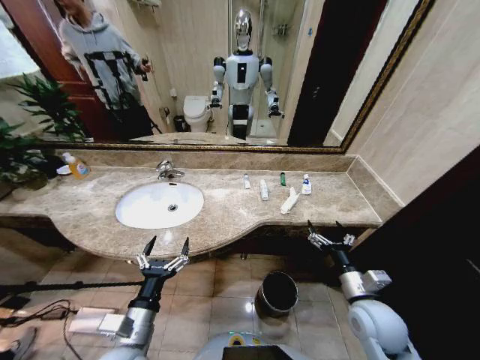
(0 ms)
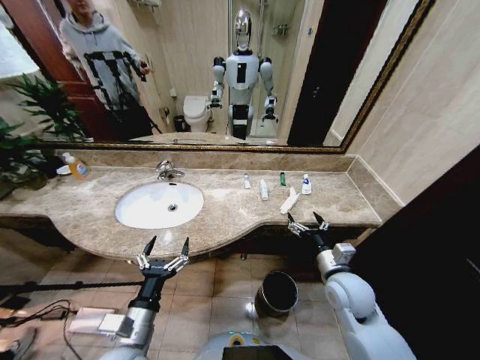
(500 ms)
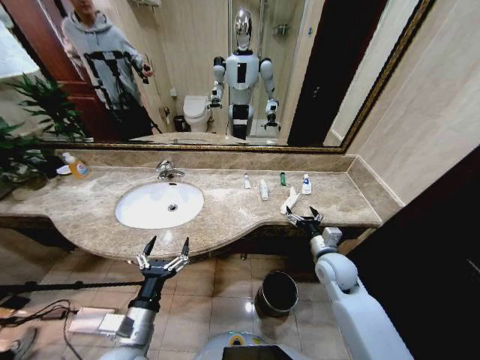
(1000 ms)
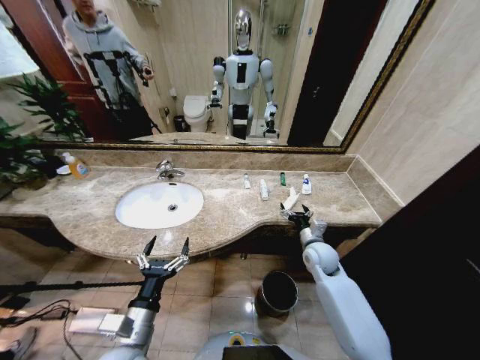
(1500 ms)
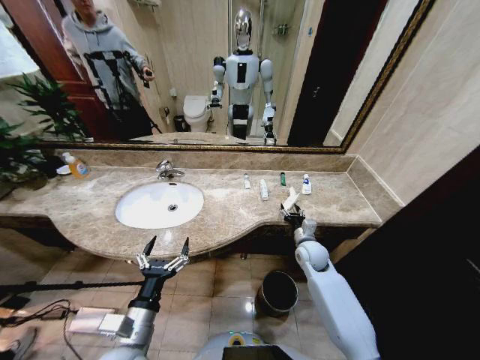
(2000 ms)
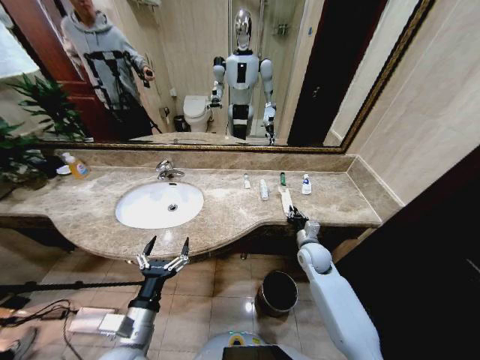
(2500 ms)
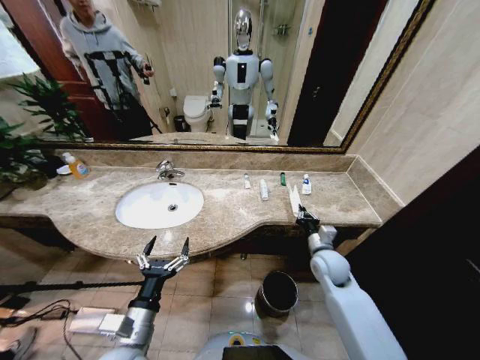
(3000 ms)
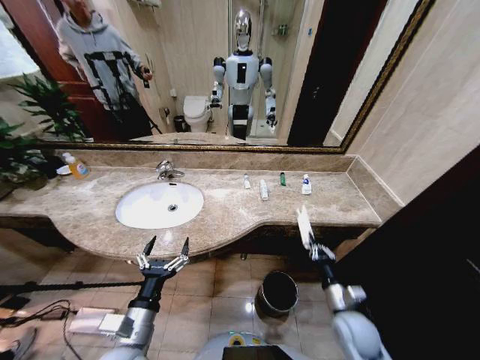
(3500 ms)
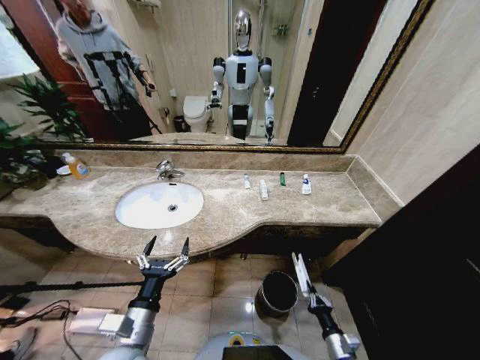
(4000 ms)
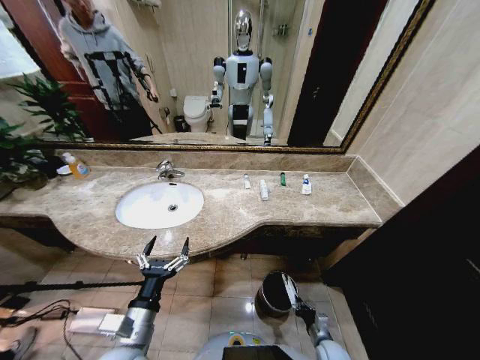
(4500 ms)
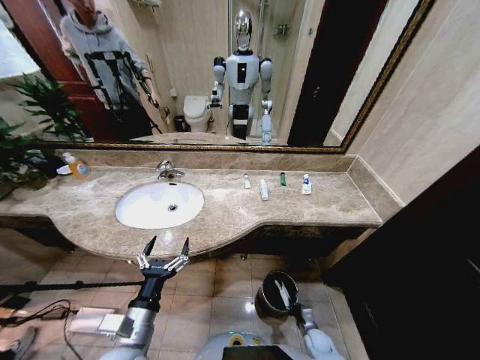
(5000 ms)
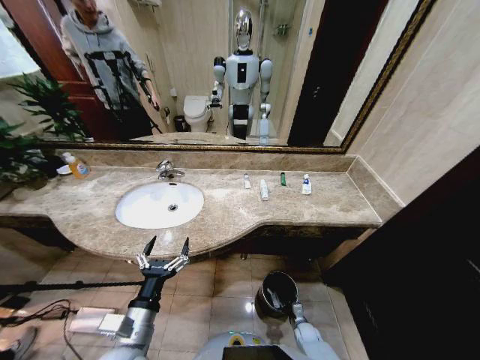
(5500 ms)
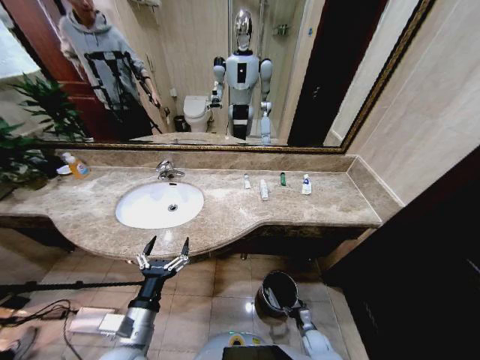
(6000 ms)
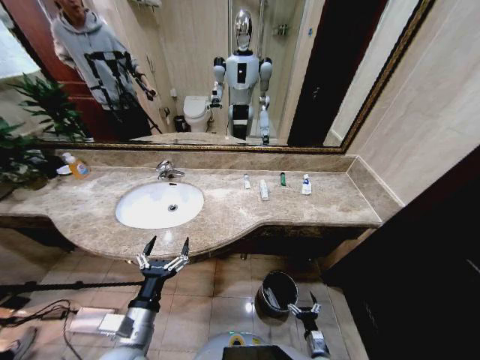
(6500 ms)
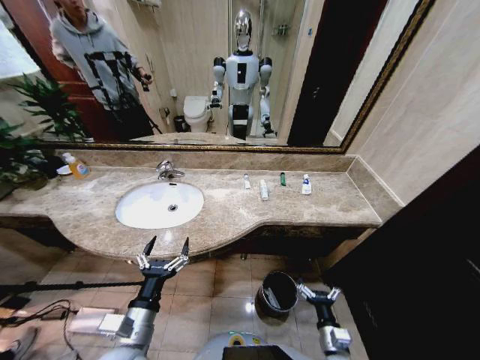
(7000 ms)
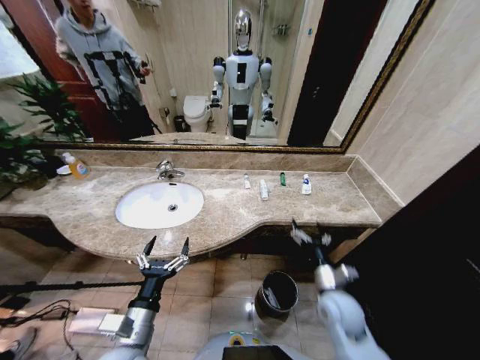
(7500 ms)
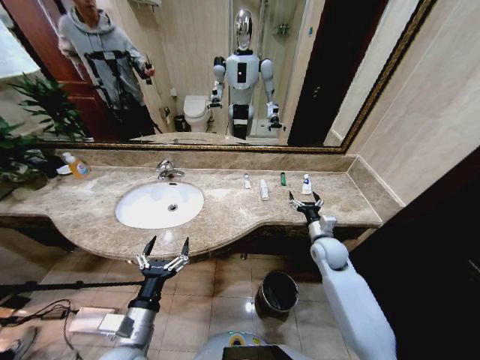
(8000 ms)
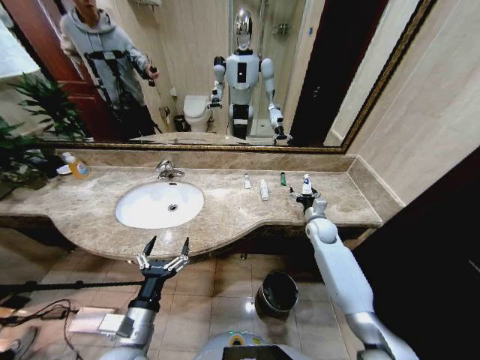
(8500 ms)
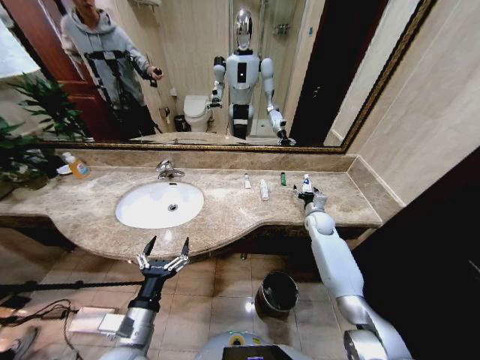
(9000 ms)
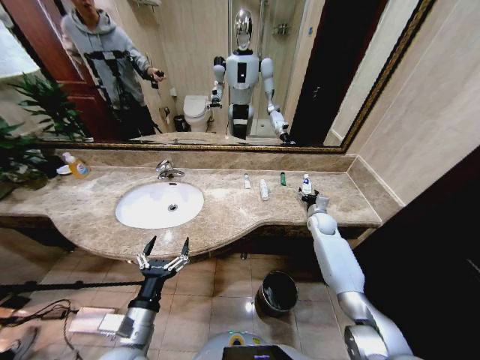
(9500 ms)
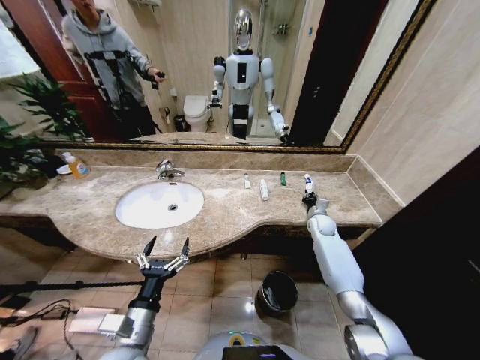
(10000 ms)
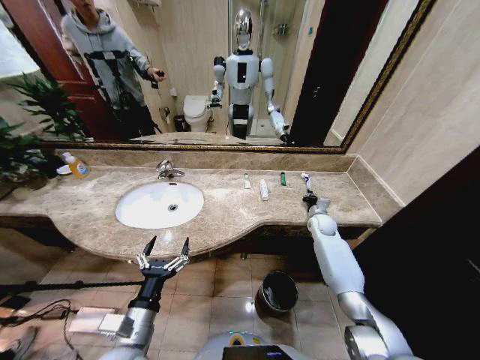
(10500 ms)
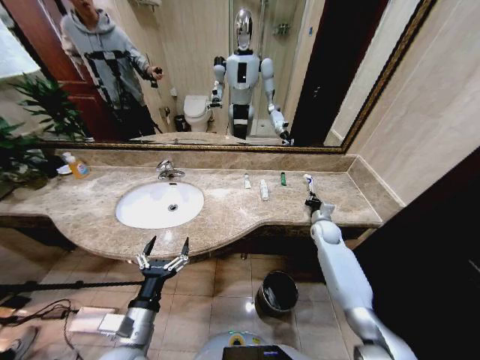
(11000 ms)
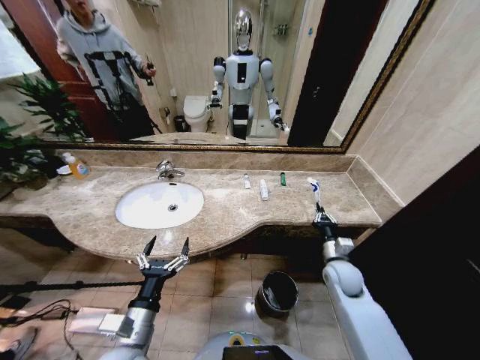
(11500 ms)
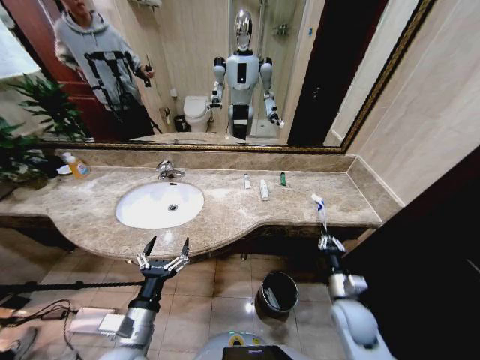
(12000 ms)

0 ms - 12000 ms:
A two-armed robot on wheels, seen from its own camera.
Task of the whole recording: Pick up the trash from the sink and place it in the trash bin.
2000 ms - 4000 ms: The right gripper is displaced backward and downward by some 35 cm, and closes.
4000 ms - 6000 ms: The right gripper moves downward and forward, some 20 cm, and opens.
6000 ms - 8000 ms: The right gripper goes some 40 cm upward and forward.
8000 ms - 10000 ms: The right gripper shifts about 15 cm forward and to the right, and closes.
10000 ms - 12000 ms: The right gripper travels backward by approximately 30 cm.

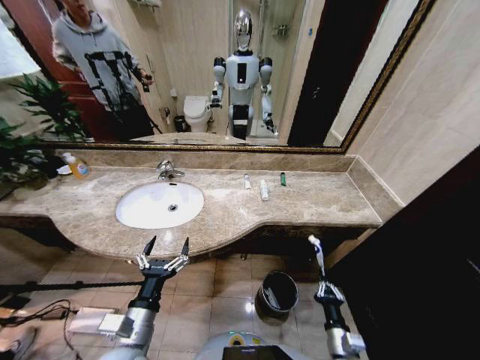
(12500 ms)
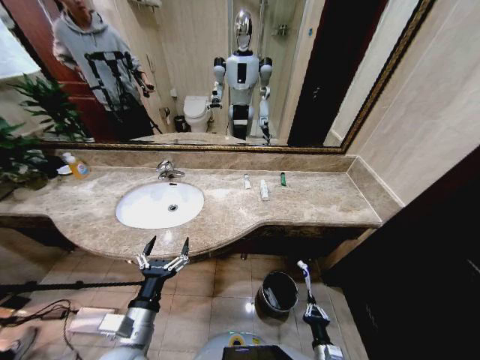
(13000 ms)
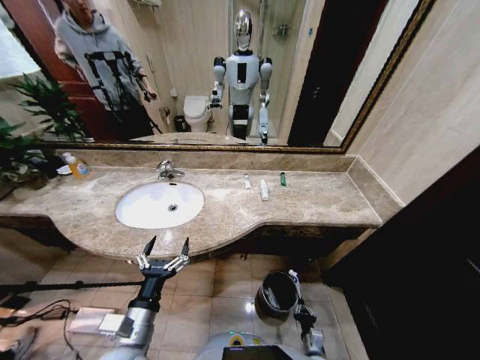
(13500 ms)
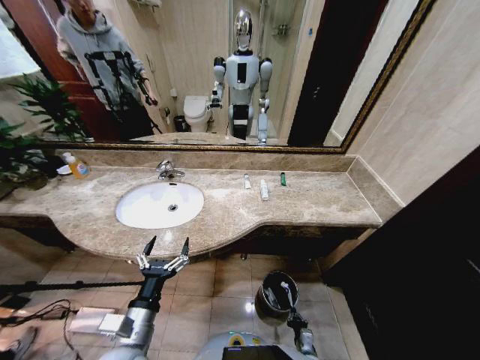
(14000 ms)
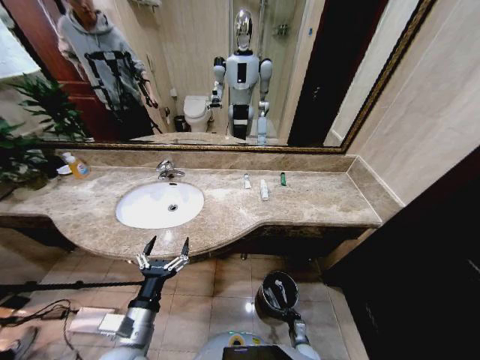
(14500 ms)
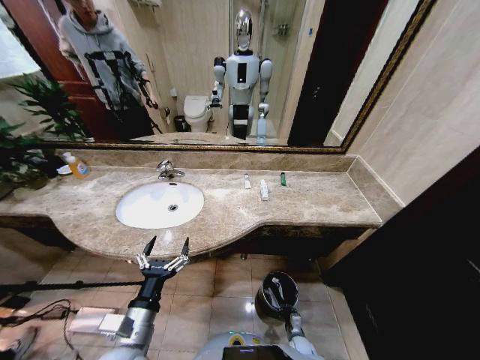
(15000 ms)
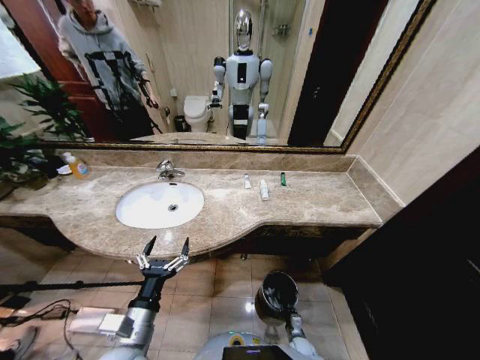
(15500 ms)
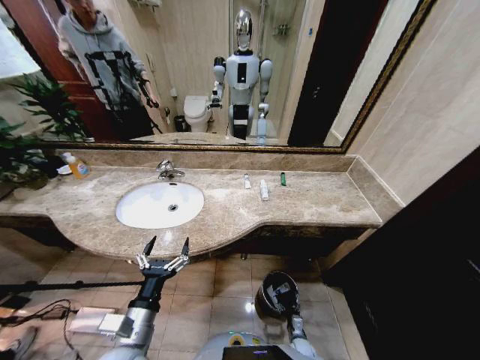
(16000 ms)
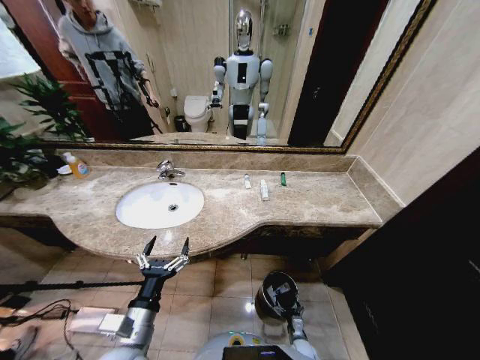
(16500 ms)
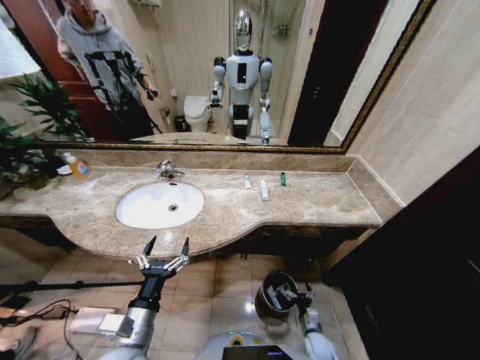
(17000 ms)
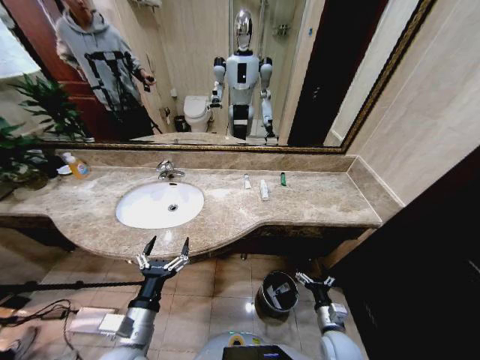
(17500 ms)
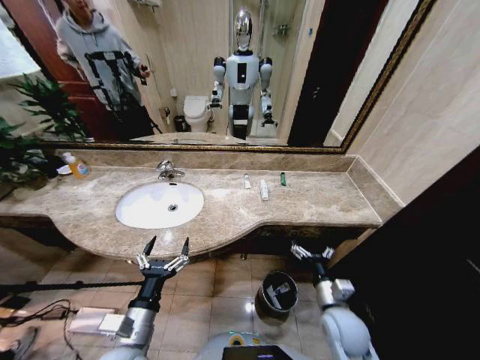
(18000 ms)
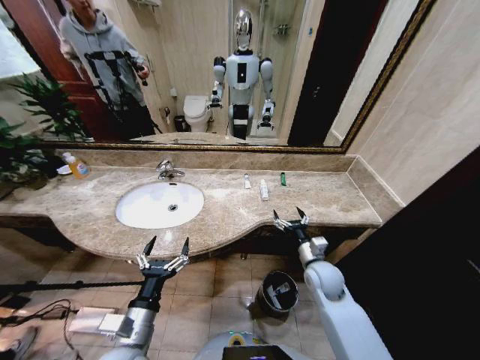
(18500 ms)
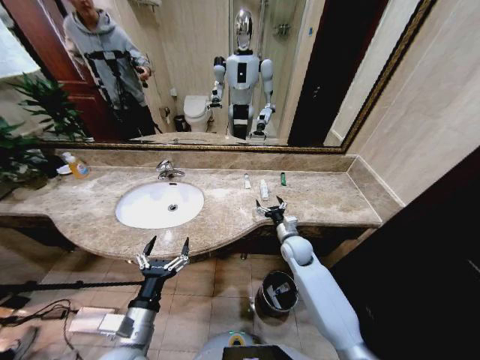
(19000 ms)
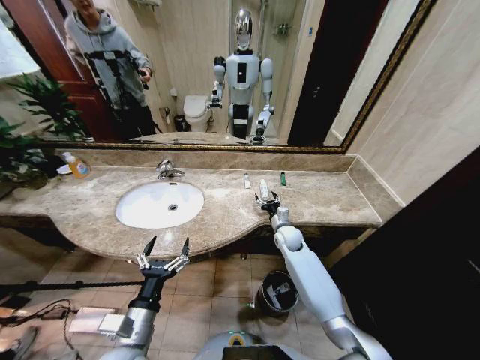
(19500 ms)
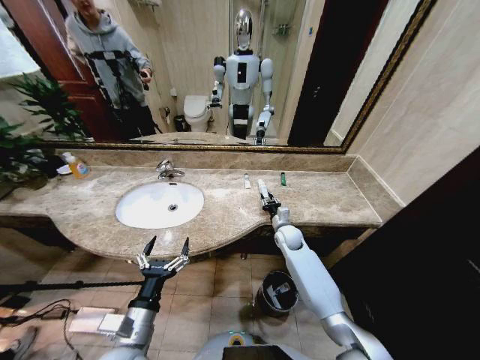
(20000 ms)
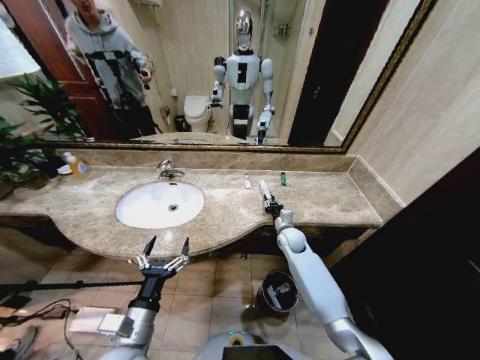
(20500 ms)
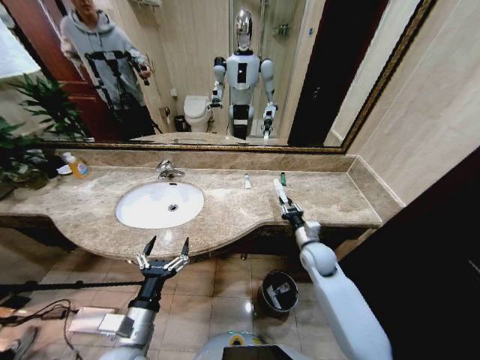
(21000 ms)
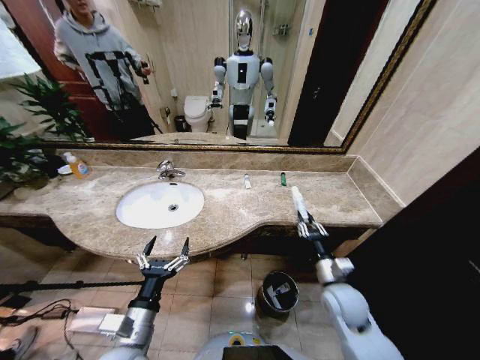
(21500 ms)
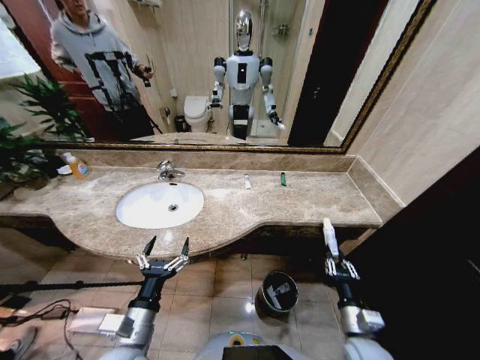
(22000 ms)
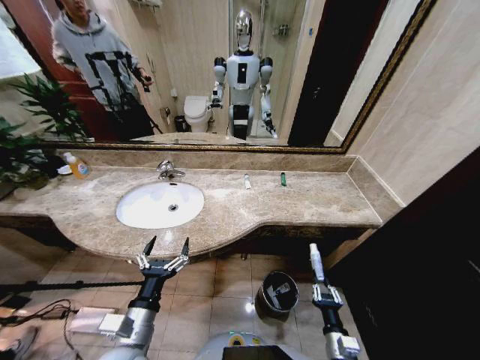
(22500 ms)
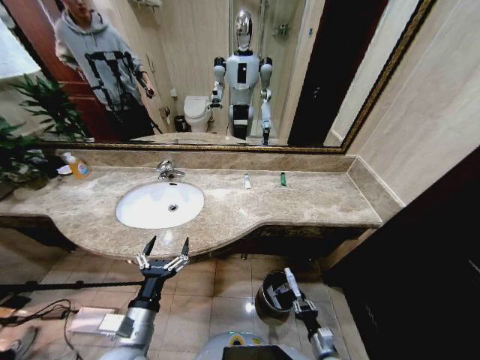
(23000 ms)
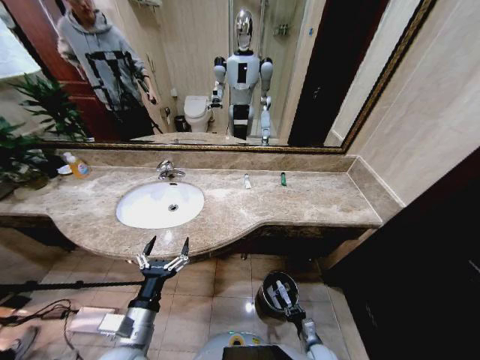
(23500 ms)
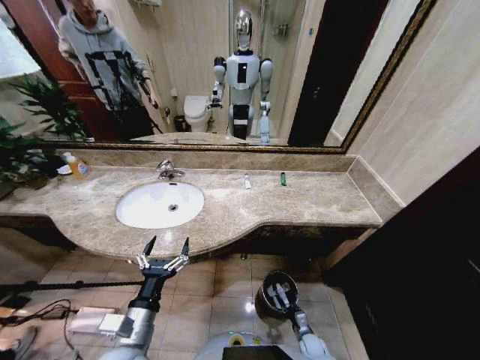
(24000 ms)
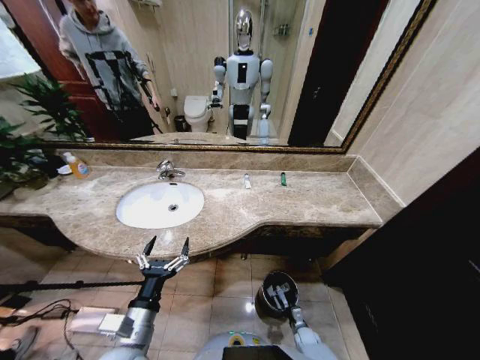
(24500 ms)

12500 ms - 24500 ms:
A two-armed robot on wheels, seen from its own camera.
Task of the whole recording: Pick up the trash from the sink and place it in the trash bin.
12500 ms - 14500 ms: The right gripper shifts approximately 25 cm downward.
14500 ms - 16500 ms: The right gripper opens up.
16500 ms - 18500 ms: The right gripper goes roughly 35 cm upward.
18500 ms - 20500 ms: The right gripper travels forward by about 15 cm, and closes its fingers.
20500 ms - 22500 ms: The right gripper travels backward by about 35 cm.
22500 ms - 24500 ms: The right gripper is displaced downward and forward by some 25 cm.

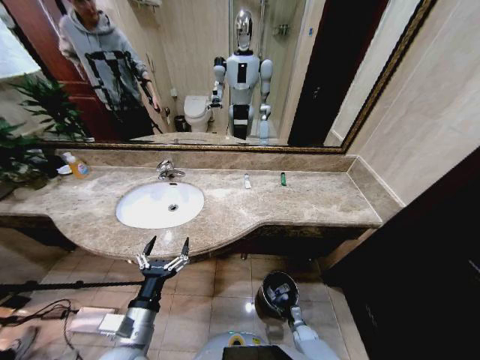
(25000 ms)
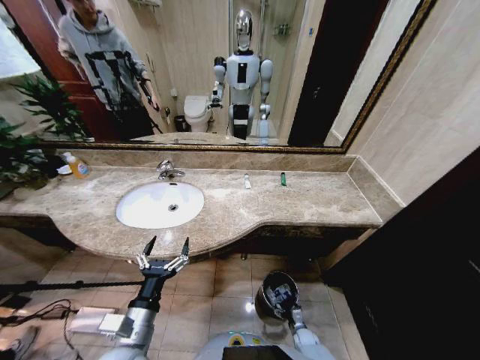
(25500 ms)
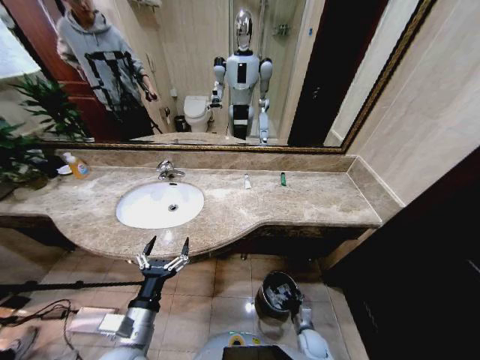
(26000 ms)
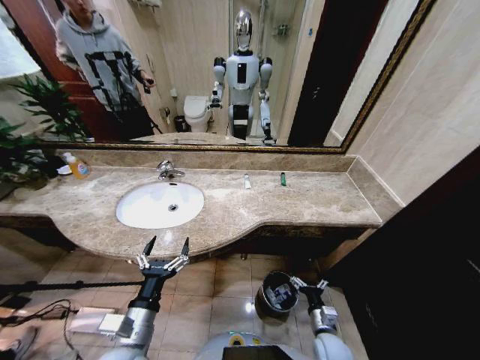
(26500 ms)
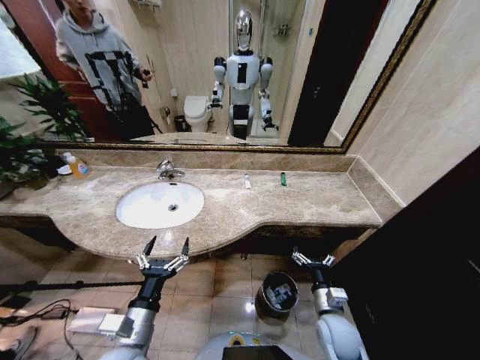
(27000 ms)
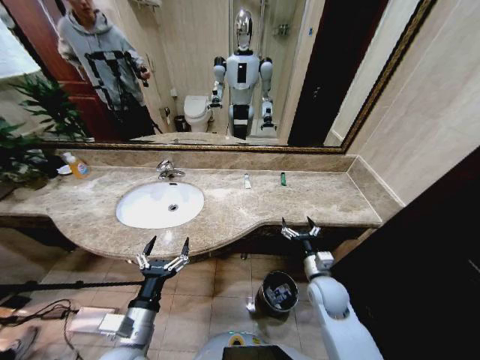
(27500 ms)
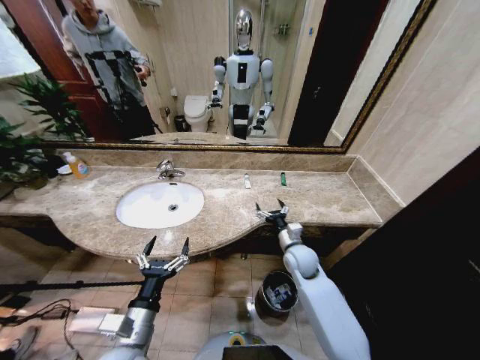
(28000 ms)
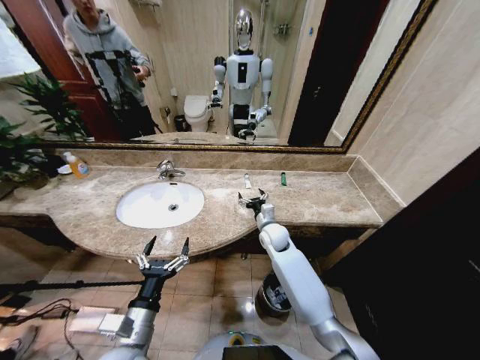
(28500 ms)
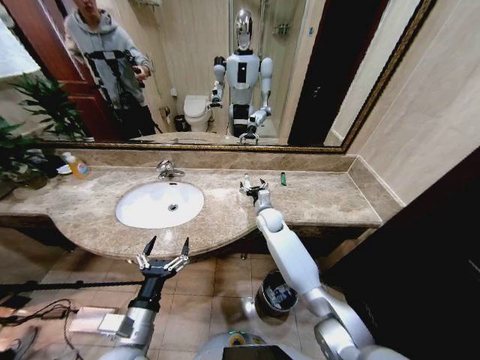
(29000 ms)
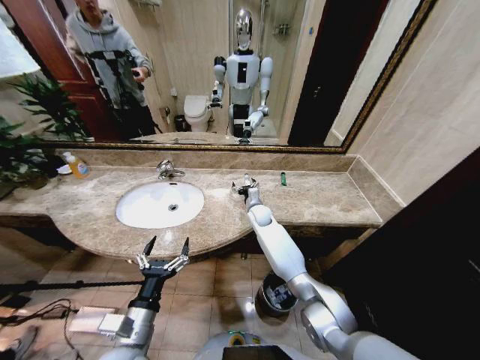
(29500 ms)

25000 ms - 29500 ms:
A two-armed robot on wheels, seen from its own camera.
Task of the whole recording: Pick up the trash from the sink and place it in the trash bin.
25000 ms - 27000 ms: The right gripper heads upward, covering approximately 30 cm, and opens its fingers.
27000 ms - 29500 ms: The right gripper heads forward and to the left, covering approximately 40 cm.
